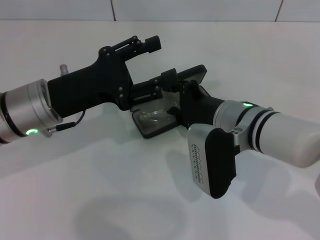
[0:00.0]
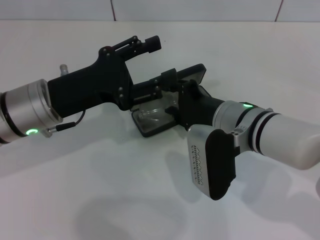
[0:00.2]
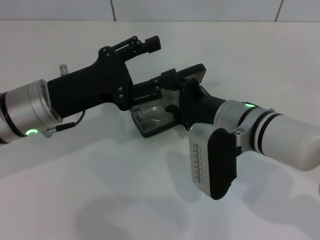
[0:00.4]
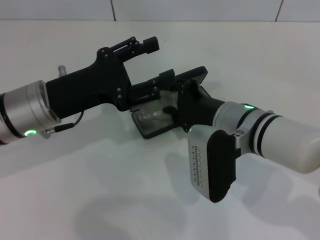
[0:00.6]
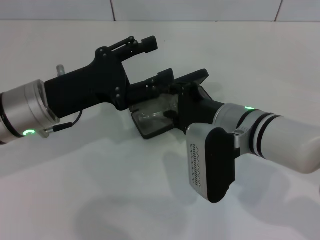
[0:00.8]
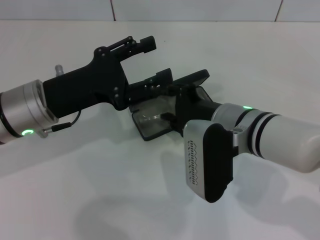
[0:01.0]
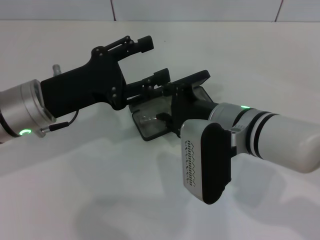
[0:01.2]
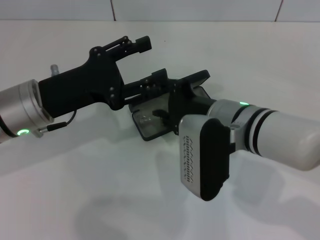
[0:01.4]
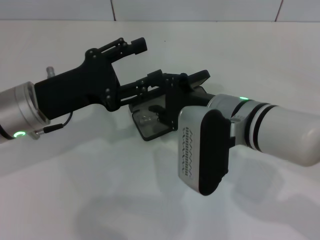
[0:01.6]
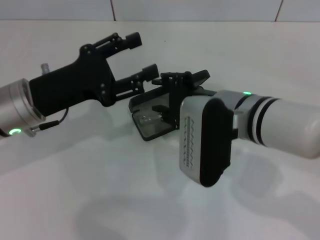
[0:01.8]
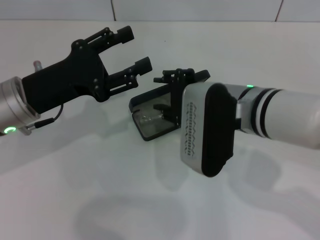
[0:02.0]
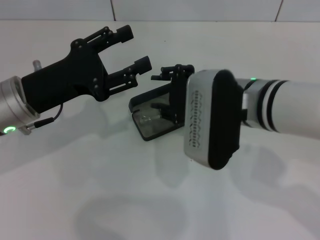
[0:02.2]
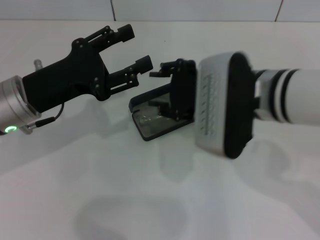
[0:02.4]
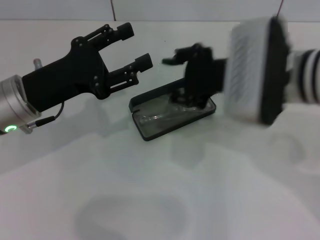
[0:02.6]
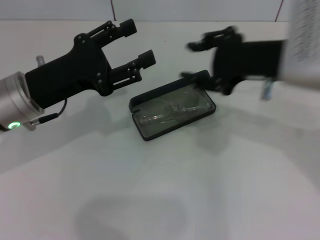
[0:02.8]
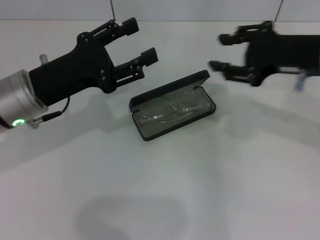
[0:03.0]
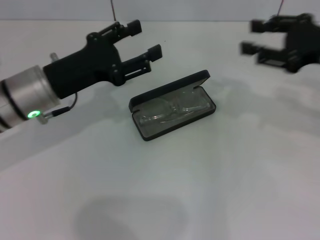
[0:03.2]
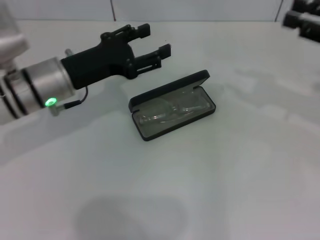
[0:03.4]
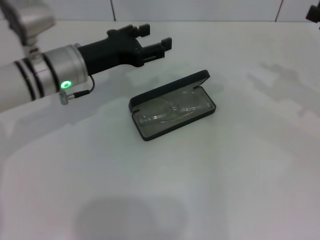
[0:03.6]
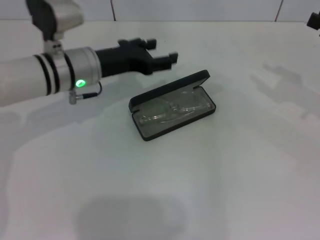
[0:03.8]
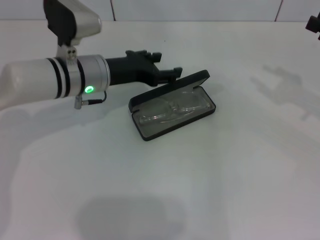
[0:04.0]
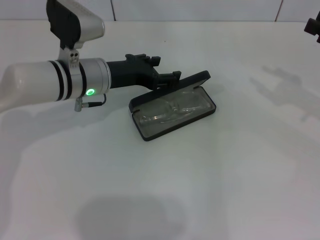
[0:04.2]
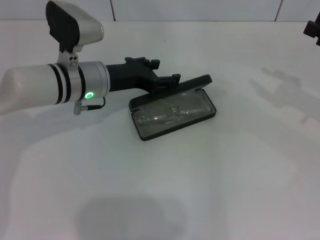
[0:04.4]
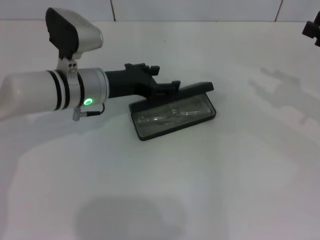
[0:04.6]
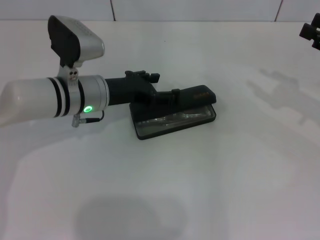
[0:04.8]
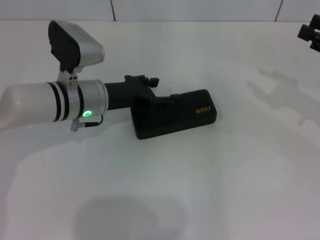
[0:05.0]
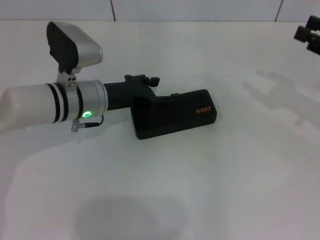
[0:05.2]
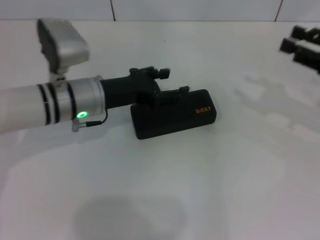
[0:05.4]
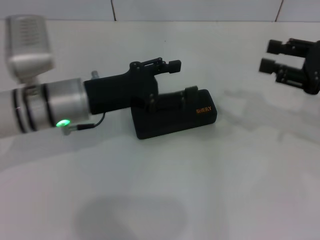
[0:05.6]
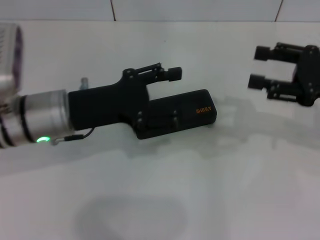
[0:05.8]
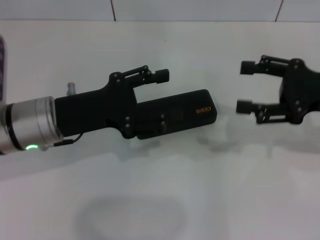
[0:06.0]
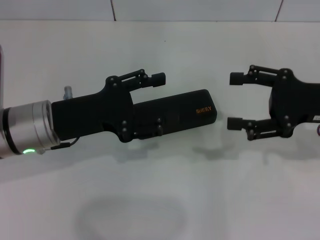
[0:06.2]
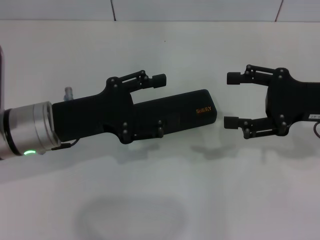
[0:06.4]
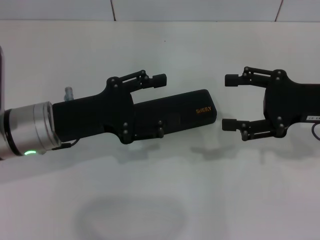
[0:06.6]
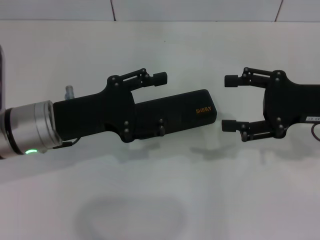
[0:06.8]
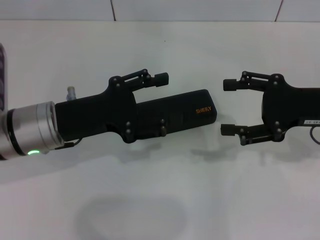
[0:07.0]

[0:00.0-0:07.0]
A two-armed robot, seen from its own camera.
Step, 0:01.4 to 0:05.0: Close the glasses case with your left hand.
0:00.0 to 0:01.4: The grippers make only small movements.
0:01.4 to 0:02.8: The right gripper heads upward and to the right, covering some 15 cm.
0:02.8 to 0:04.2: The left gripper is displaced forward and to the right by approximately 10 cm; the right gripper is displaced to the right by approximately 20 cm.
0:04.2 to 0:05.6: The left gripper travels backward by some 5 cm.
0:05.6 to 0:07.0: The right gripper opens up.

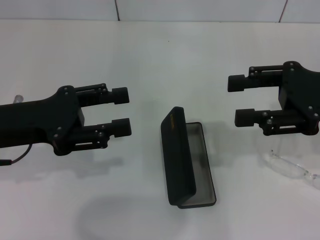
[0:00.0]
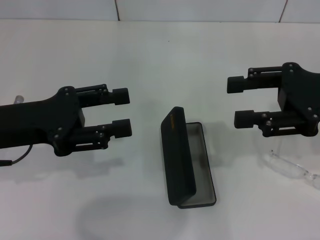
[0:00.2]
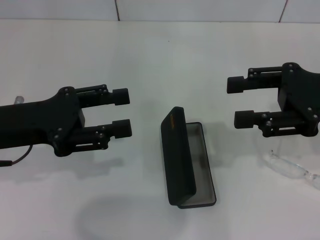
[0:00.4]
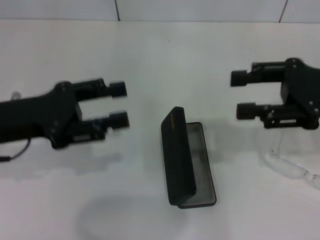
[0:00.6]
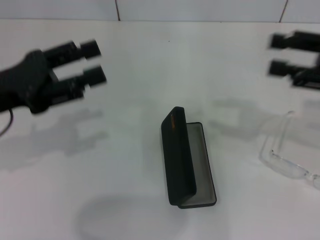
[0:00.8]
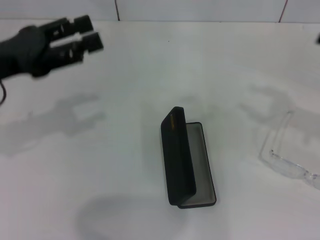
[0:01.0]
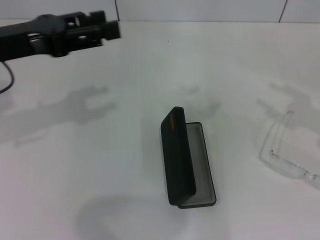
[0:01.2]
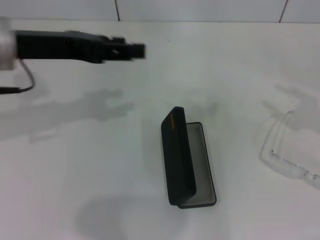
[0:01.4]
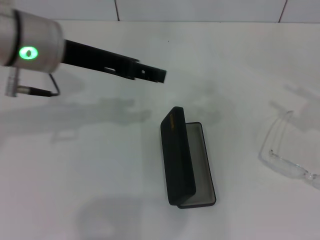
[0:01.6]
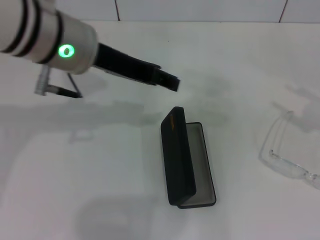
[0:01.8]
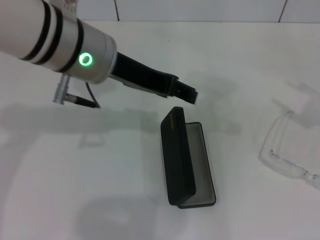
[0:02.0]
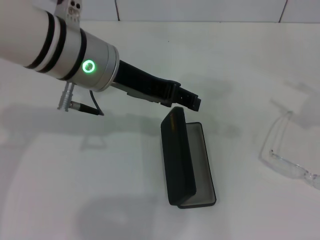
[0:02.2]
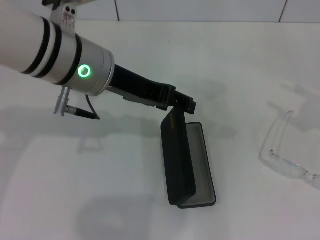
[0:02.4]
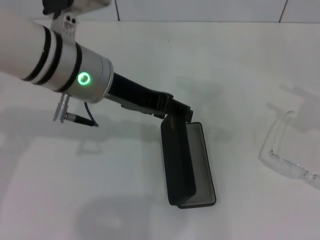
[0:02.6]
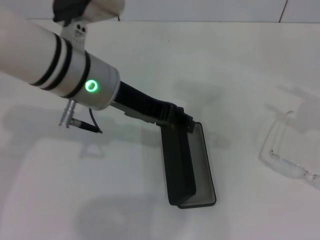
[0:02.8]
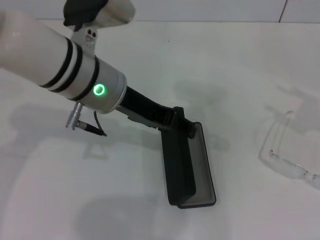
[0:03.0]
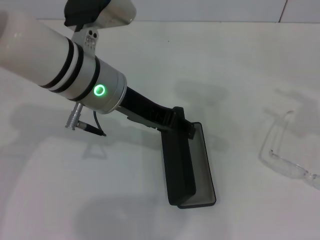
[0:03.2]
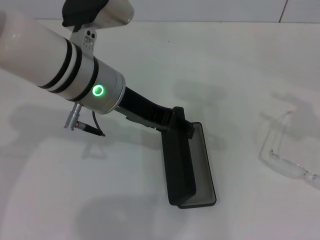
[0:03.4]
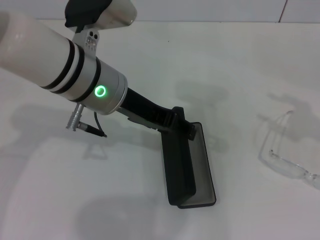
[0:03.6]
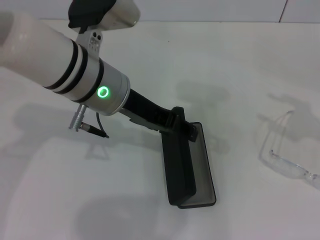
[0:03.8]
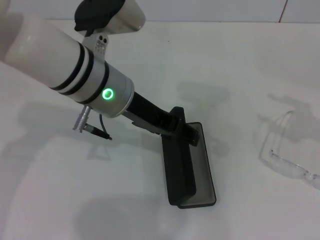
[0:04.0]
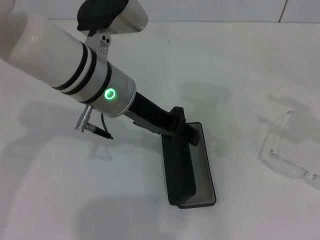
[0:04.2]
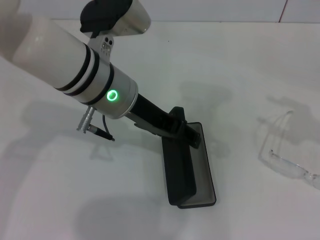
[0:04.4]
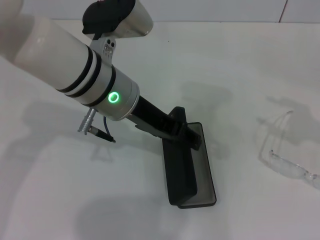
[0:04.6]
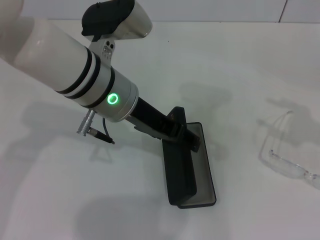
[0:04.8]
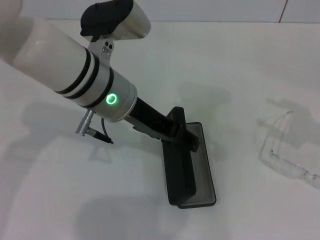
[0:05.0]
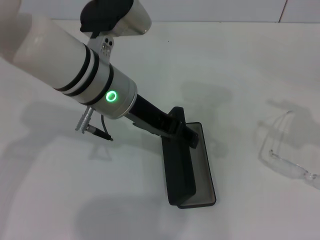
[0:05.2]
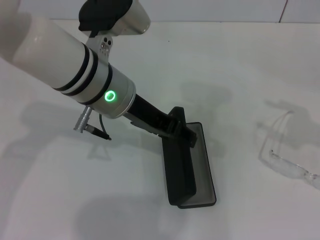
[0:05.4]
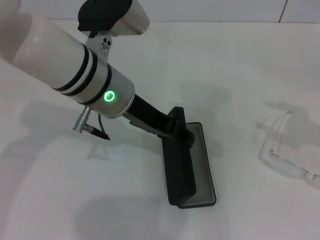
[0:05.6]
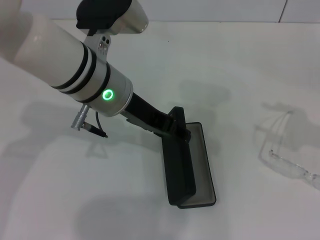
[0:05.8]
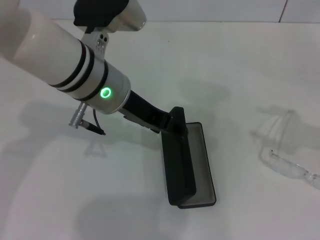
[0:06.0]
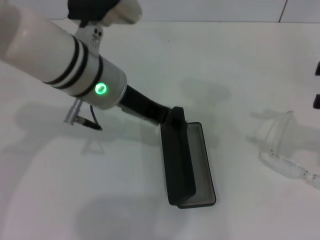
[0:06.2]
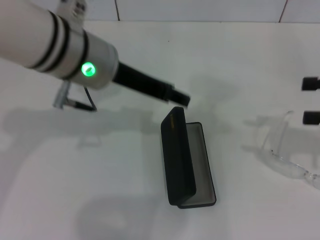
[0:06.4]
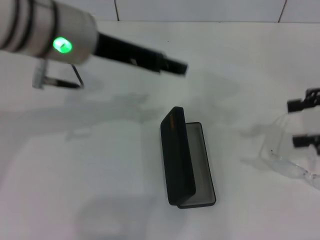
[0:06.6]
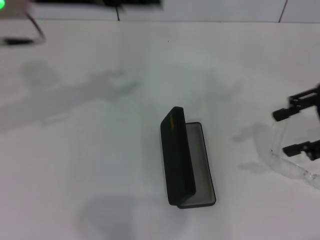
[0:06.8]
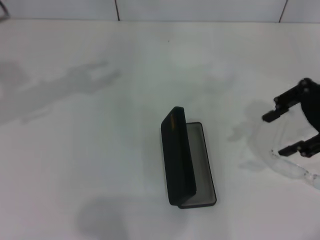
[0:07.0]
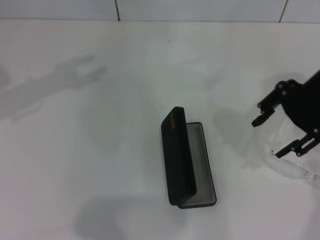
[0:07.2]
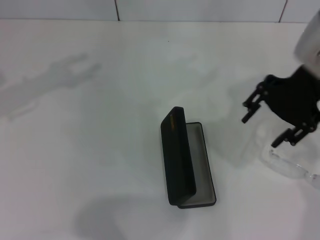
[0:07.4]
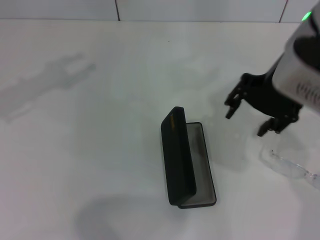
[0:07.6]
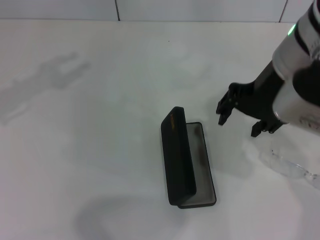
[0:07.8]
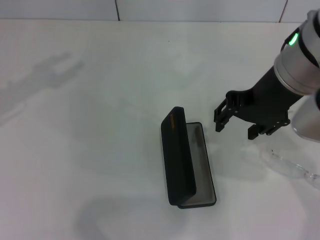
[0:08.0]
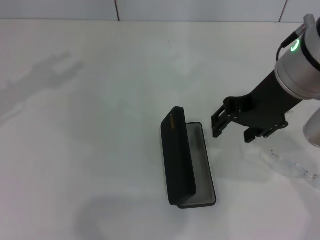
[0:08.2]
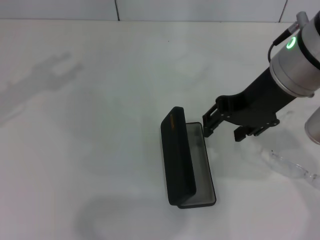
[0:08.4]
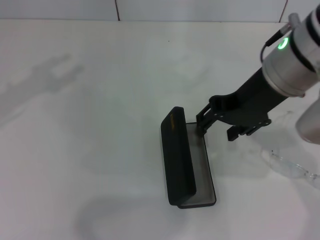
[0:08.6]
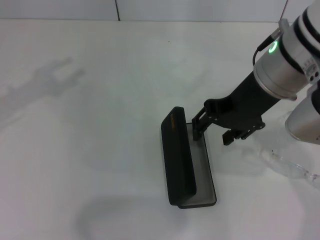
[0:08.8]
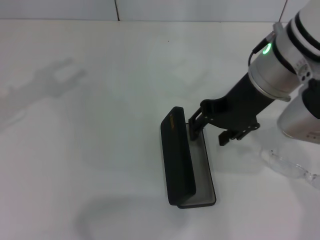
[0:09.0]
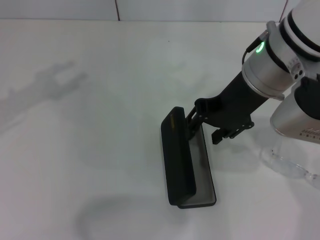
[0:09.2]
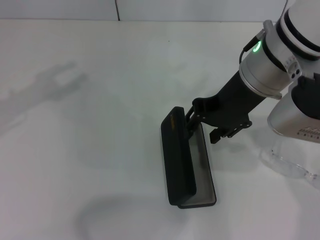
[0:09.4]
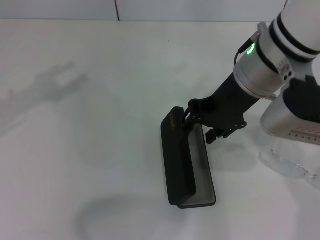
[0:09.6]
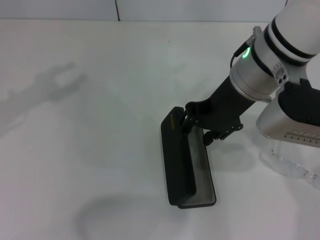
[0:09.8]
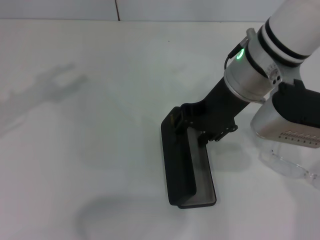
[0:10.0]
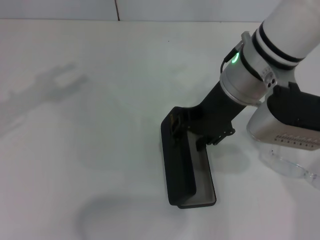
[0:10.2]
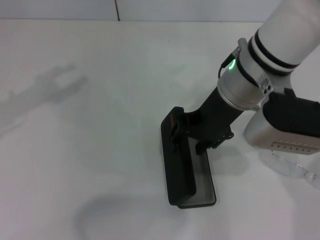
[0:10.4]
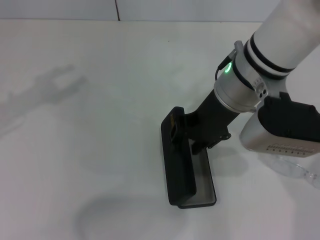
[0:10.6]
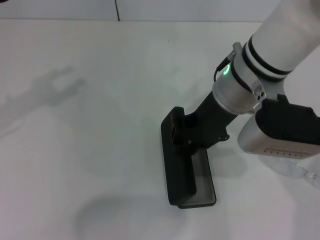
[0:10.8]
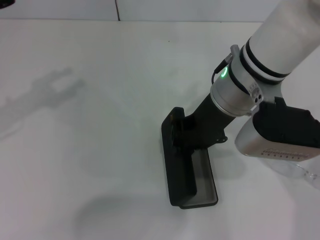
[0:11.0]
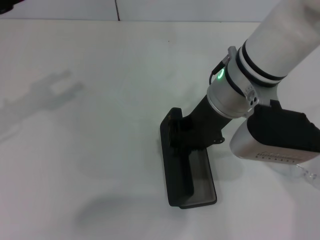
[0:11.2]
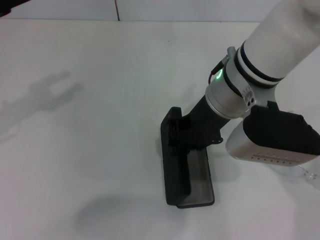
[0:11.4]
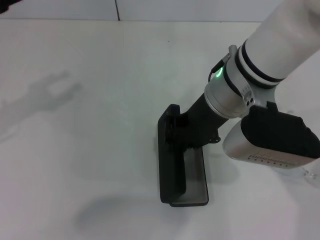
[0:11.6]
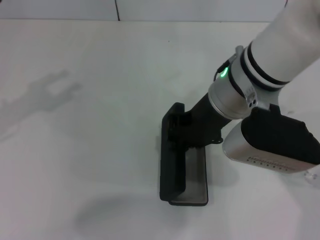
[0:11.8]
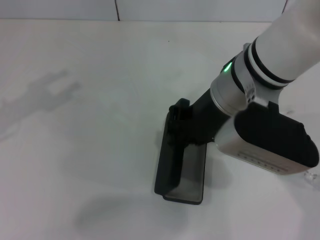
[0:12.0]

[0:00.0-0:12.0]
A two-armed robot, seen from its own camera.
Step, 0:00.0 to 0:11.0: Grab the glasses case with your right hand.
0:00.0 to 0:01.6: The right gripper is displaced to the right by some 15 cm; the left gripper shifts some 15 cm to the right, upward and forward.
0:01.6 to 0:03.0: The left gripper heads to the right, covering approximately 5 cm.
0:03.0 to 0:06.0: The grippers make only small movements.
0:06.0 to 0:07.6: The right gripper travels to the left by some 25 cm. Meanwhile the left gripper heads to the left and upward, covering some 20 cm.
0:09.0 to 0:10.4: The grippers stay close to where they were, moving slightly.
0:10.4 to 0:12.0: The right gripper closes up.

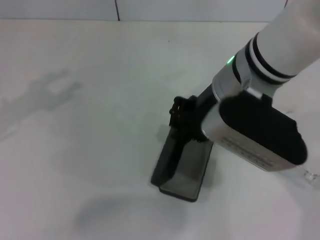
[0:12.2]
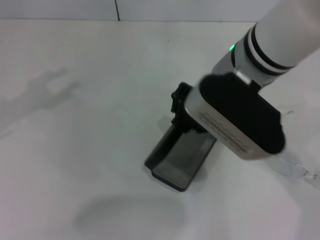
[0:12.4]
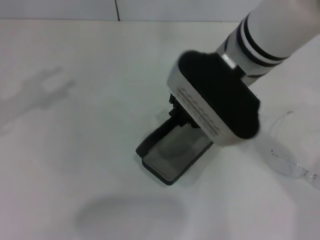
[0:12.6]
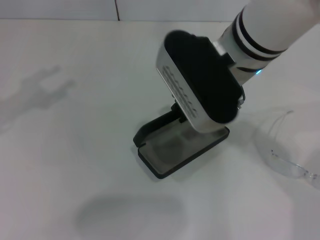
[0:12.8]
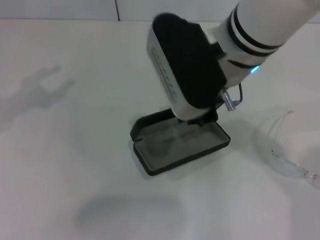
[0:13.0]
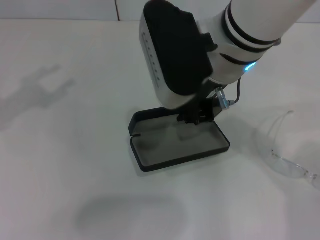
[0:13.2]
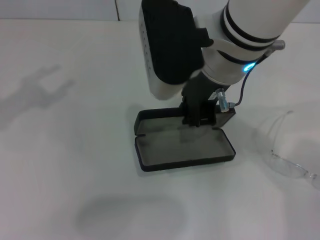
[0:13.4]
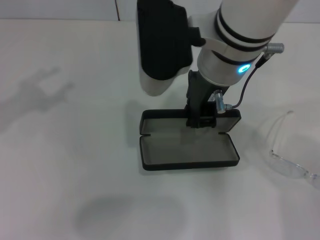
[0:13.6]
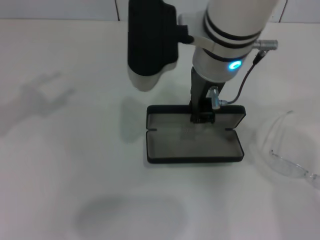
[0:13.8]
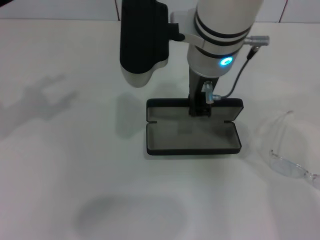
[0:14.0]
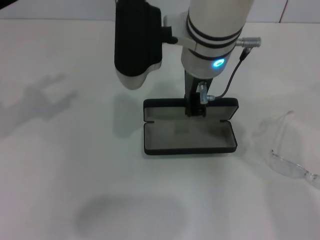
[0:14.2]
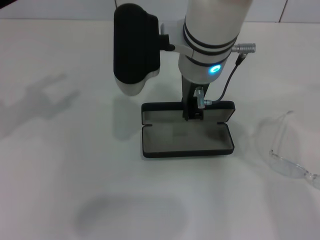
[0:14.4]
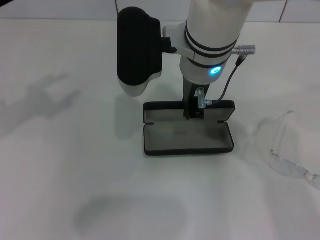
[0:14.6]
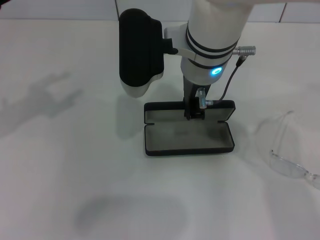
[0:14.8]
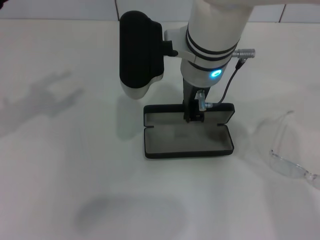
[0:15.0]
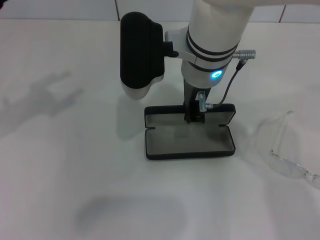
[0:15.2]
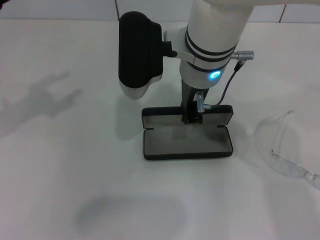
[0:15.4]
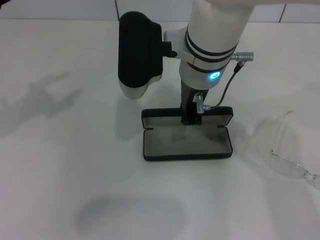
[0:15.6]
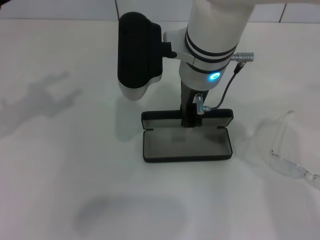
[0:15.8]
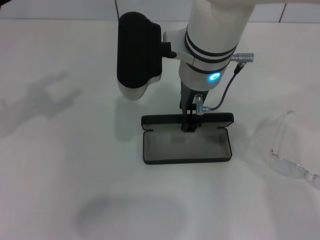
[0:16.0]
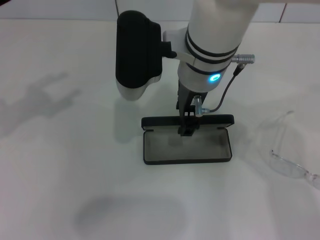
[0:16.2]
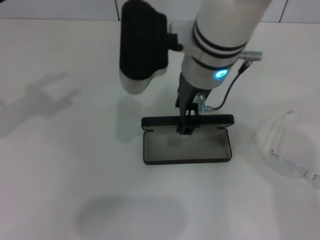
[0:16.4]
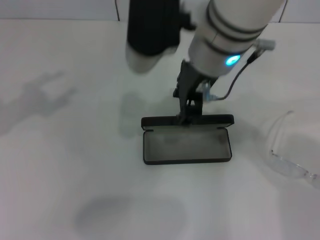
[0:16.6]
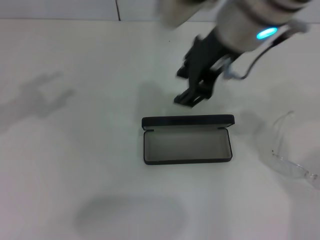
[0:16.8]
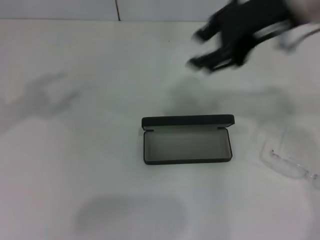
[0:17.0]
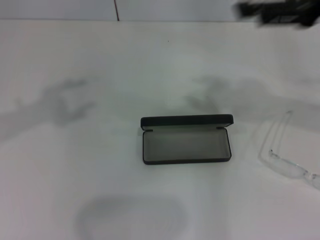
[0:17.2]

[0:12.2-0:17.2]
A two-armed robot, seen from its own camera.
Step, 0:12.2 to 0:15.6: Place the glasses case in the center of the table with your right hand.
0:12.2 to 0:13.8: The right gripper ends up roughly 5 cm from where it was.
0:13.8 to 0:15.6: The grippers move only a little.
0:15.6 to 0:17.2: The right gripper shifts roughly 25 cm to the right and upward, and opens.
